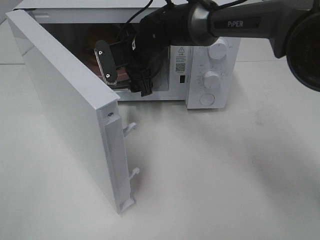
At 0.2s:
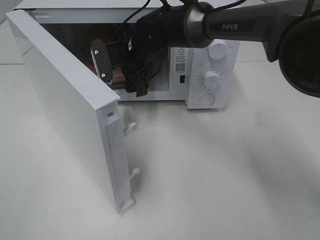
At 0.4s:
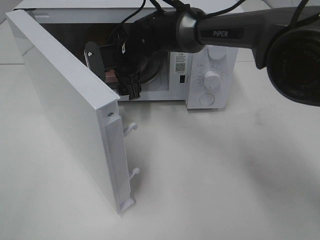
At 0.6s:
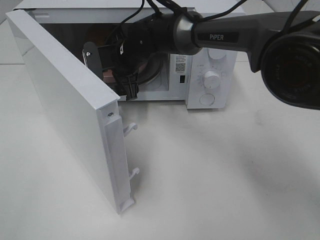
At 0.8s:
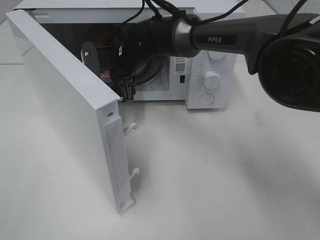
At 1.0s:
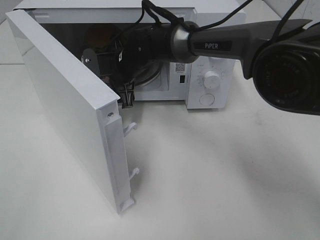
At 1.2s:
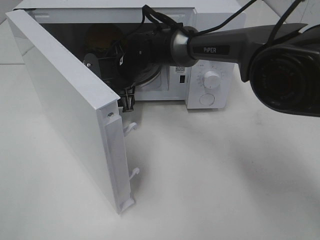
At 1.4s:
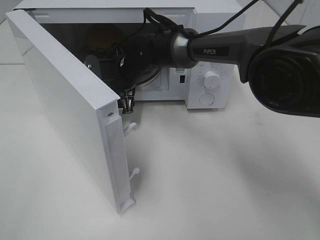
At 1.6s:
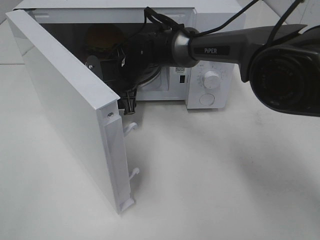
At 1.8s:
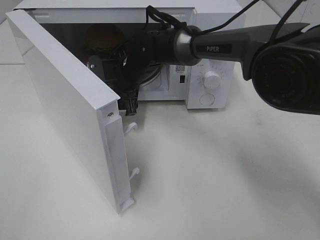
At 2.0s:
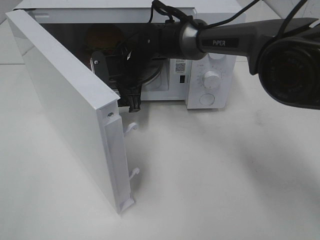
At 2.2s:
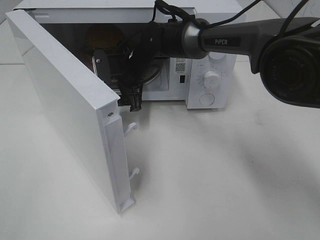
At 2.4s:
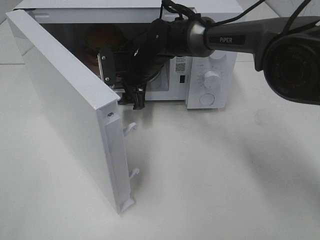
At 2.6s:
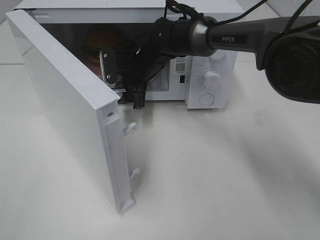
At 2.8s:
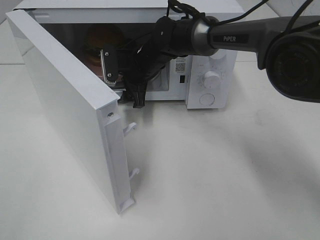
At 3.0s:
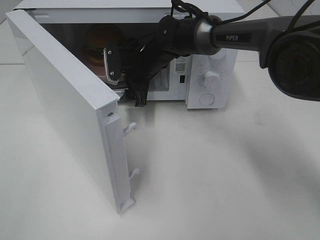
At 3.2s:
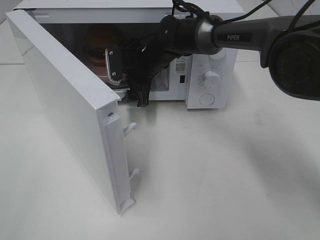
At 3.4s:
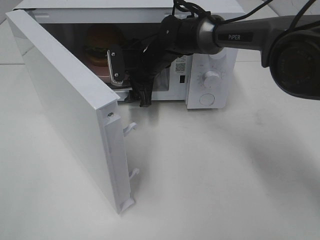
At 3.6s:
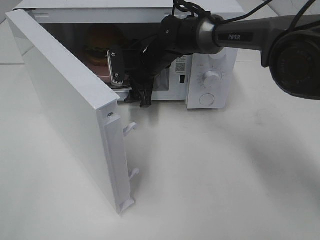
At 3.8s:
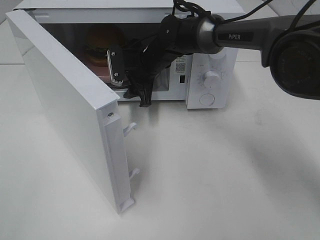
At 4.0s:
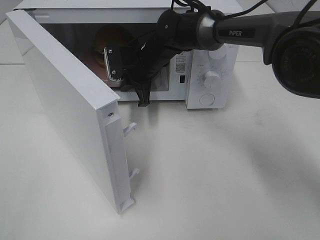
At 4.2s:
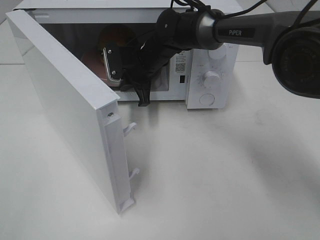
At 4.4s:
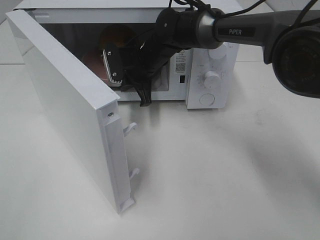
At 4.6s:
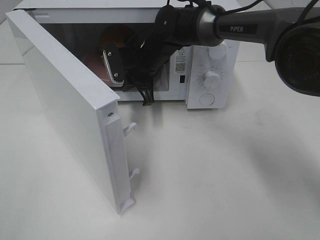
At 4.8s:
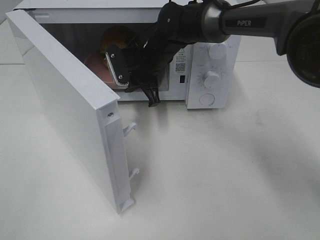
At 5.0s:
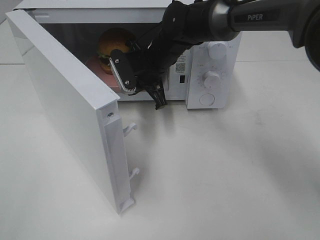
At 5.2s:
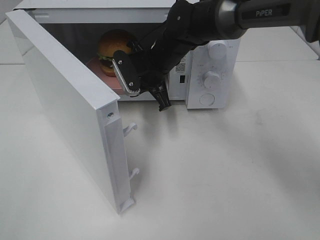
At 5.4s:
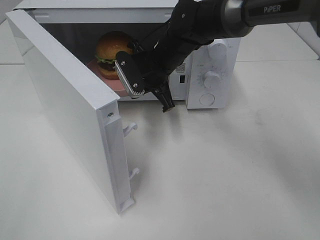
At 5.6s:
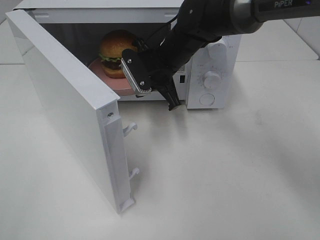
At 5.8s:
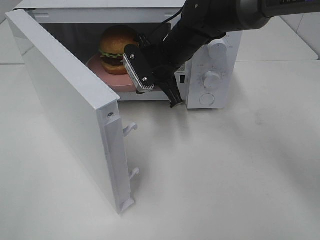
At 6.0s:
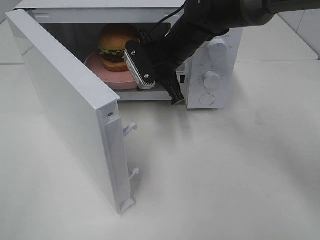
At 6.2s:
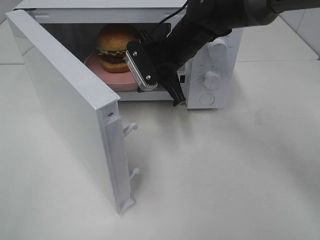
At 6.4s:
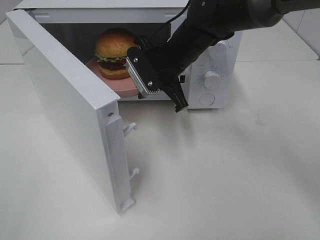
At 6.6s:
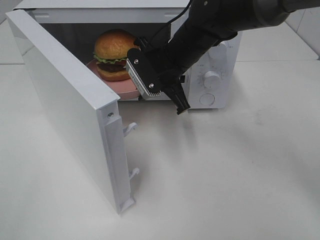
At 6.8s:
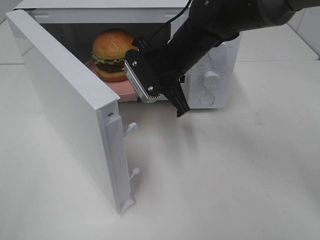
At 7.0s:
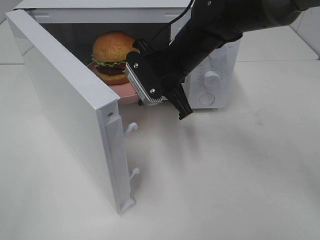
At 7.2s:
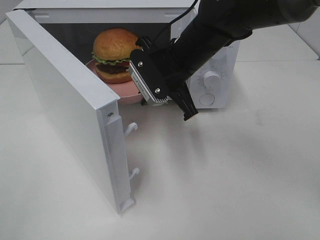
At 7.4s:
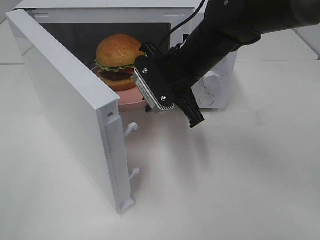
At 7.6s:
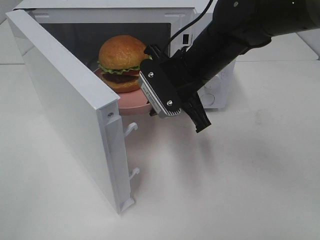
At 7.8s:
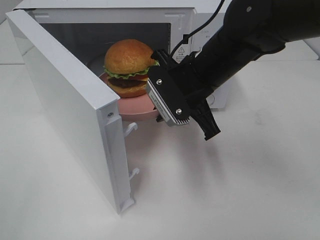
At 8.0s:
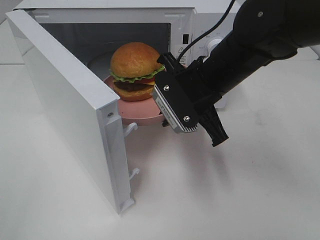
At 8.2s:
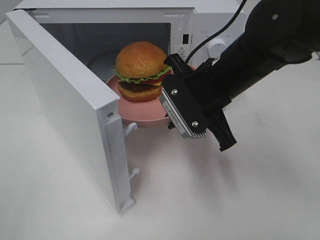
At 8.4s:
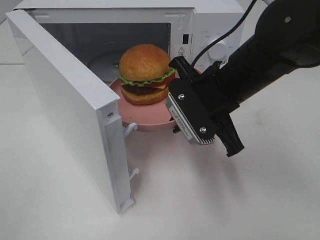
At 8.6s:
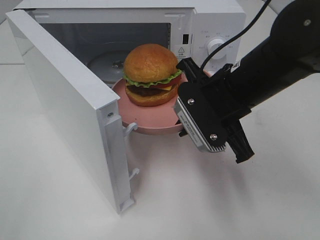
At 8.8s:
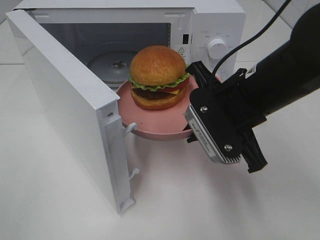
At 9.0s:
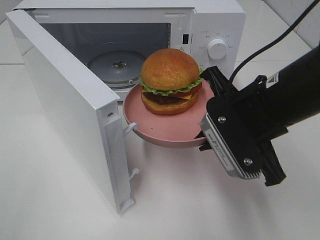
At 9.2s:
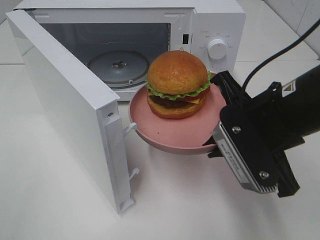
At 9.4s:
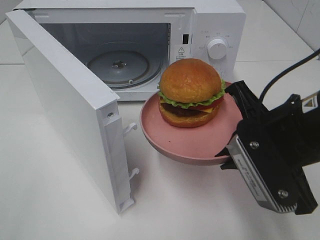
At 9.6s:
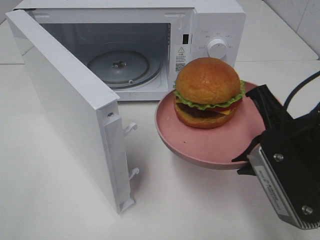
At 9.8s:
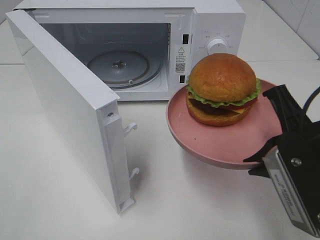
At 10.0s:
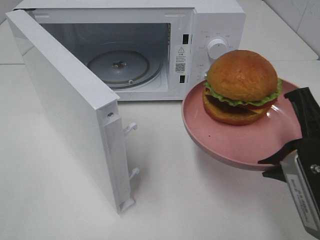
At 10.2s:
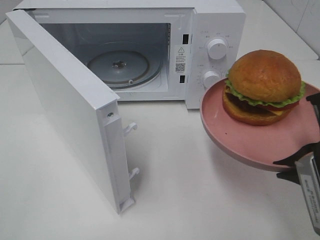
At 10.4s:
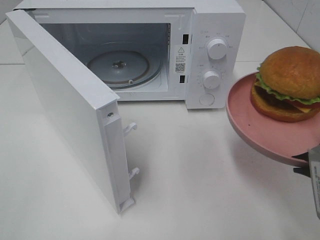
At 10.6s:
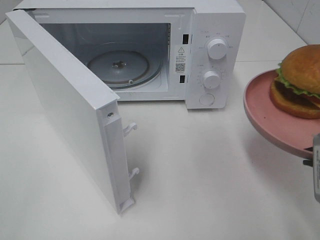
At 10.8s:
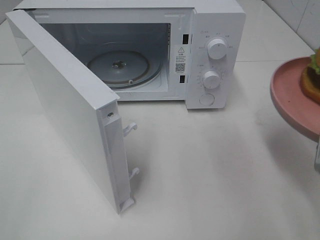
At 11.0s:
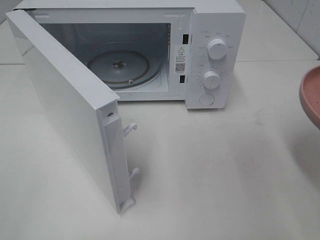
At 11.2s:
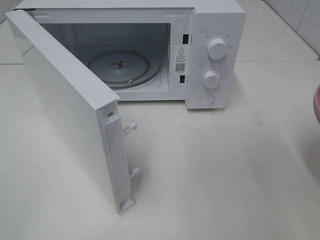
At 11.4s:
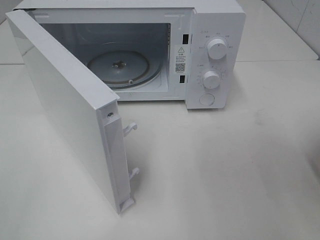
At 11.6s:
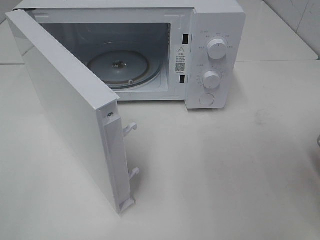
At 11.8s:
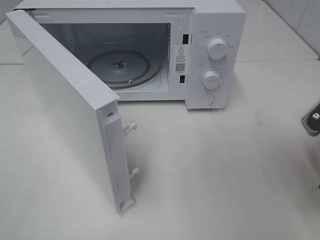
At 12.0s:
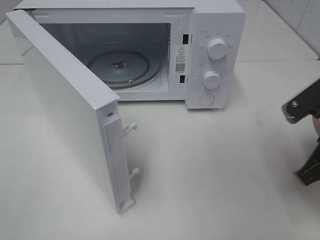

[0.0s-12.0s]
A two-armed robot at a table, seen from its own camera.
Task of the whole recording: Heat the burger.
Step, 0.0s to 4.0s: Right hand: grab the plate with the hamburger.
0.0s to 1.6s: The right gripper shifts by about 5 cm.
1.6s to 3.0s: The grippers stay close to where they were, moving slightly.
3.0s to 4.4s: The right gripper closes.
4.4s to 6.0s: The right gripper moves some 10 cm.
6.0s to 7.6s: The right gripper travels backward by about 10 cm.
7.6s to 9.0s: The right gripper is displaced backward and to the right by roughly 15 cm.
9.0s to 10.4s: The right gripper heads backward and to the right, covering approximately 15 cm.
10.4s to 12.0s: The right gripper travels forward by roughly 5 cm.

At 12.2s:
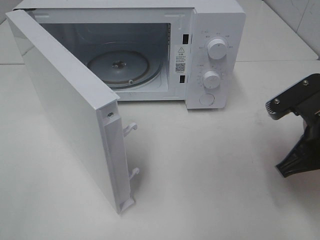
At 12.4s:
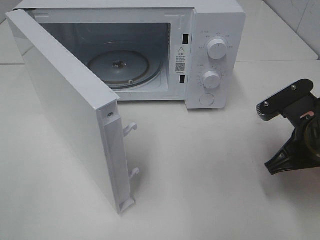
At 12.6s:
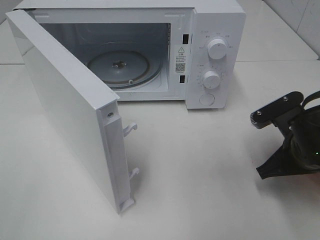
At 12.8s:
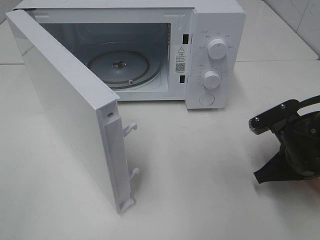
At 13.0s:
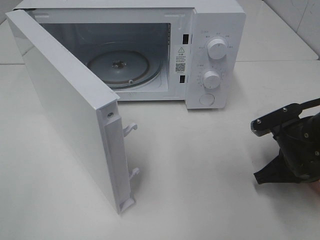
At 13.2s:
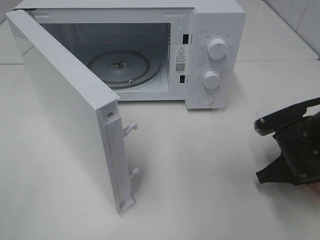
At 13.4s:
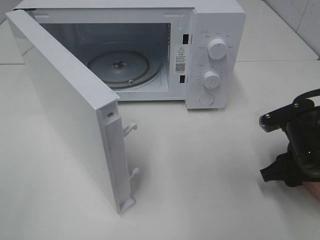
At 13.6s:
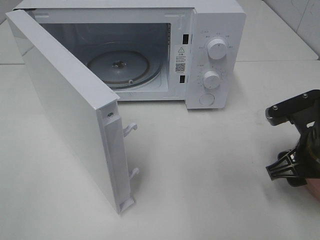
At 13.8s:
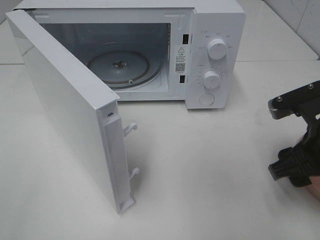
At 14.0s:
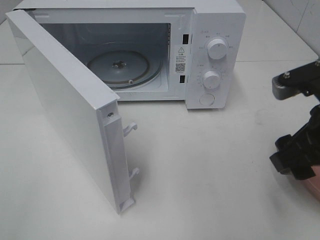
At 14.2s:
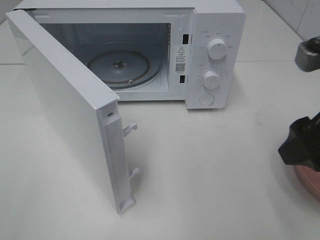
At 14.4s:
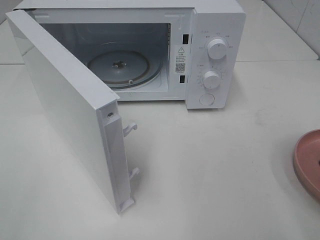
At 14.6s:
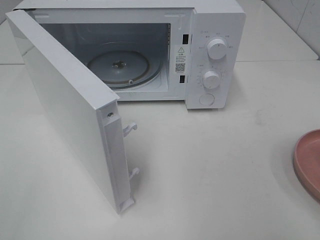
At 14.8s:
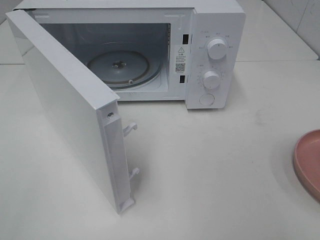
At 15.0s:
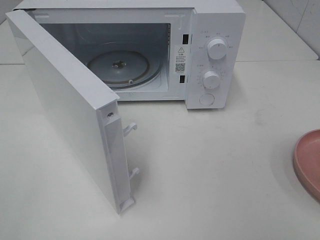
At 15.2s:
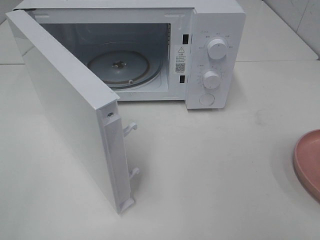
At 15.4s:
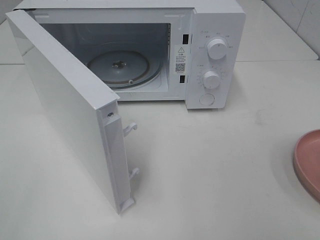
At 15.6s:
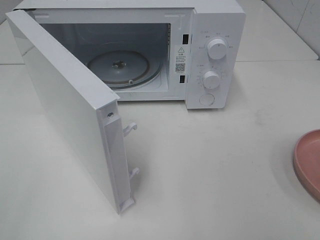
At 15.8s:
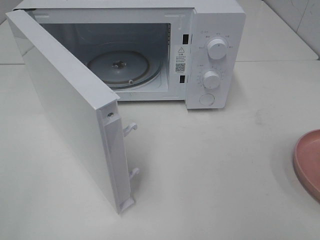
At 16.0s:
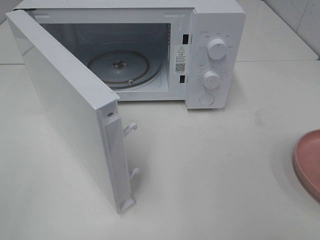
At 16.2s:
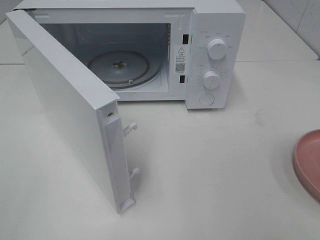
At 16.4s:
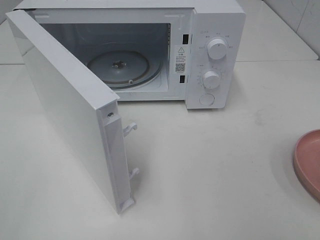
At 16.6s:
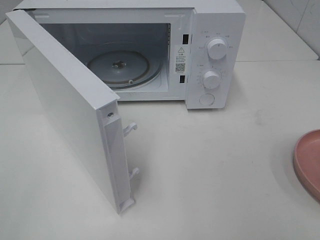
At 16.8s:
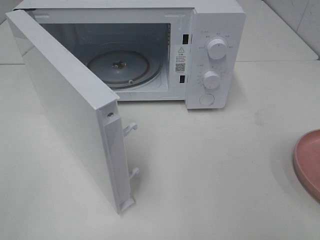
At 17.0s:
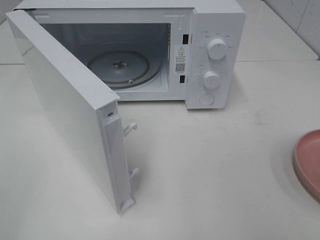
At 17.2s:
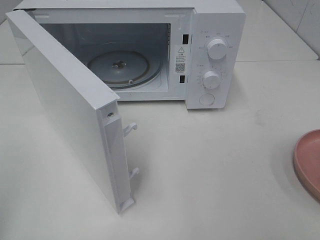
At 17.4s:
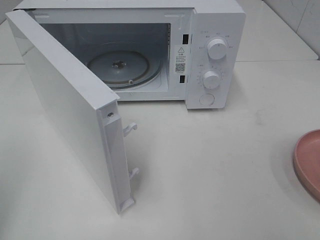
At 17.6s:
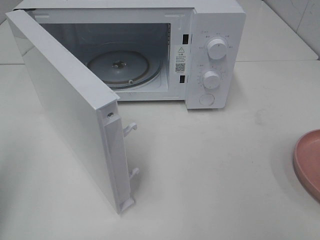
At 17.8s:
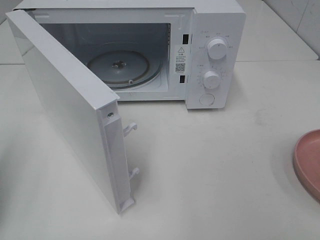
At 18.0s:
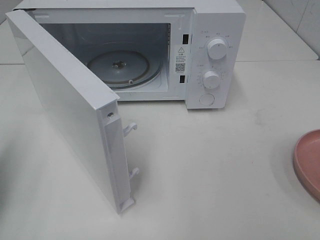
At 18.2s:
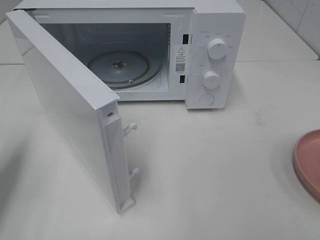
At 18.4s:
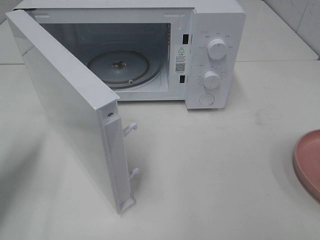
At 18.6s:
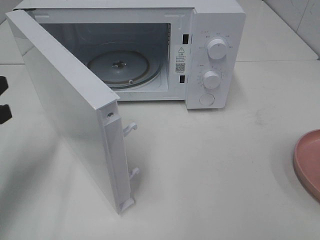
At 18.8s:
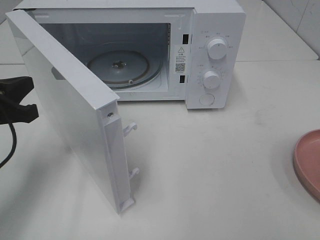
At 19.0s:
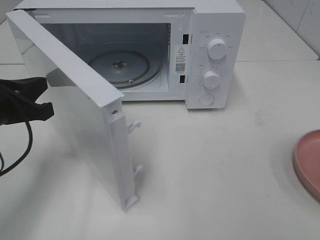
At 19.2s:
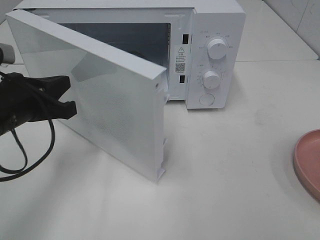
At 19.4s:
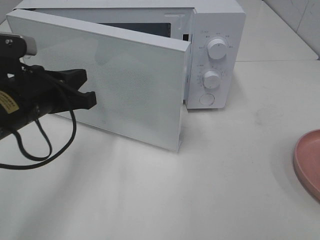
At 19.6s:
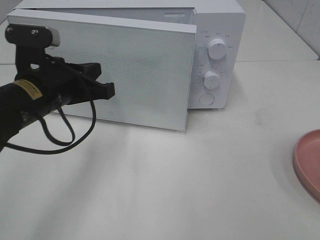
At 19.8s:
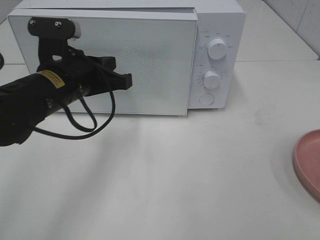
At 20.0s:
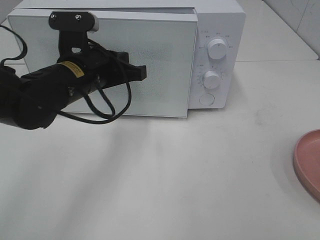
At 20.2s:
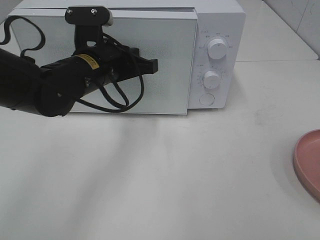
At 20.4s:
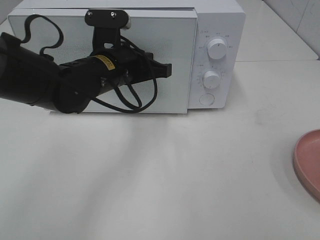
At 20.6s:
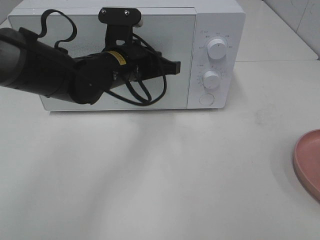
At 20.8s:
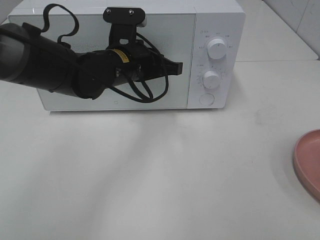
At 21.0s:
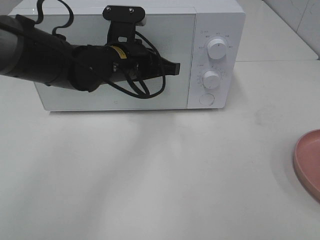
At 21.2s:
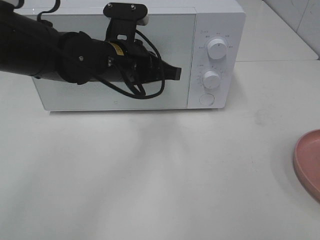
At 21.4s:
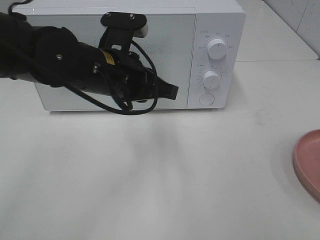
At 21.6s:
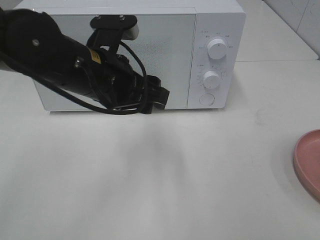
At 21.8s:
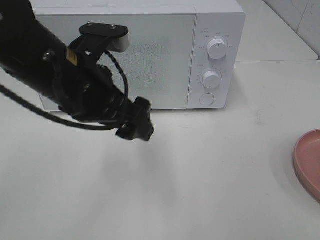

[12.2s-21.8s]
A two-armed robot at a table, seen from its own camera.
Task of the whole recording: Heat the burger.
Step, 13.6s to 21.0s: Left hand: close the microwave door.
12.2s to 13.8s: The right gripper travels downward and back again, some 10 cm each way, and opens its fingers.
13.8s to 15.4s: The right gripper heads backward and upward, covering about 20 cm.
17.0s to 18.6s: The left gripper is displaced forward and downward by some 25 cm, and closes.
18.6s to 20.2s: The left gripper travels to the right and forward by approximately 20 cm.
20.2s to 21.8s: The left gripper shifts about 10 cm backward and upward, and opens up.

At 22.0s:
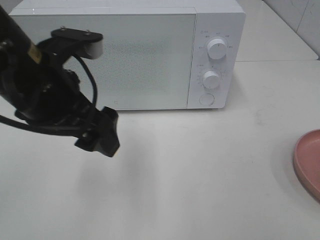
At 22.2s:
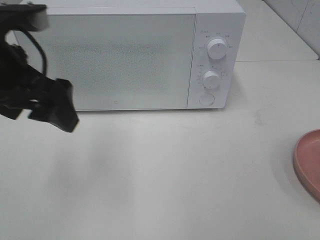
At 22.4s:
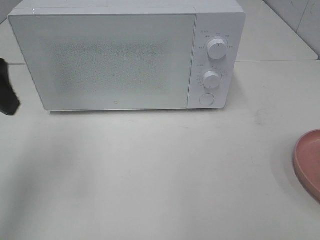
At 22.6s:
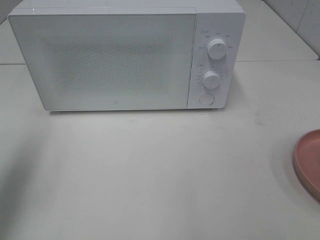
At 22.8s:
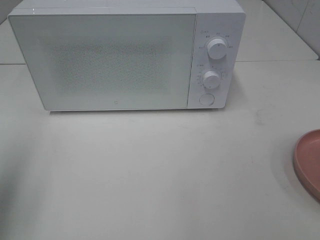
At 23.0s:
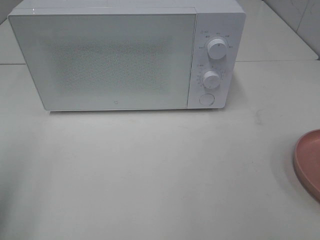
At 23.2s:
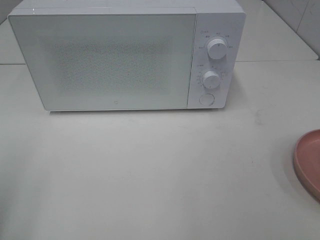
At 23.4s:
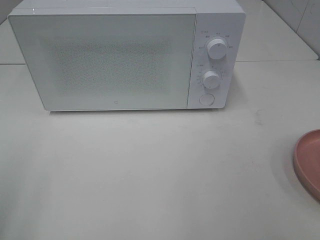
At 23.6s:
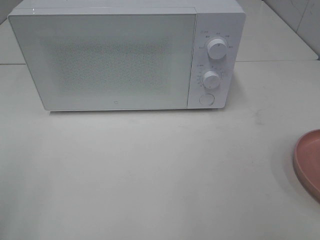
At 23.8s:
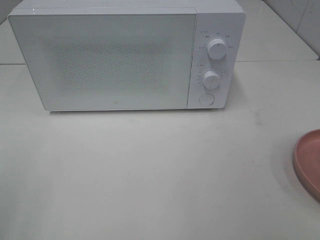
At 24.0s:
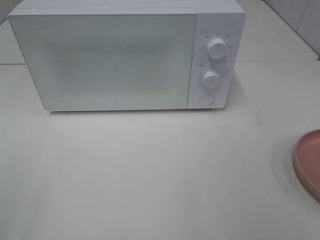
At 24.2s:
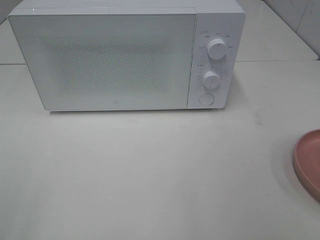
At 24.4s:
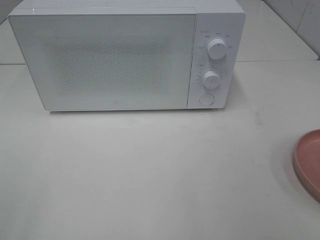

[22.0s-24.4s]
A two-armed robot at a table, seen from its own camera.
Task of the whole recording: Heat the burger.
22.0s to 23.2s: The left gripper travels to the left and backward by approximately 25 cm.
